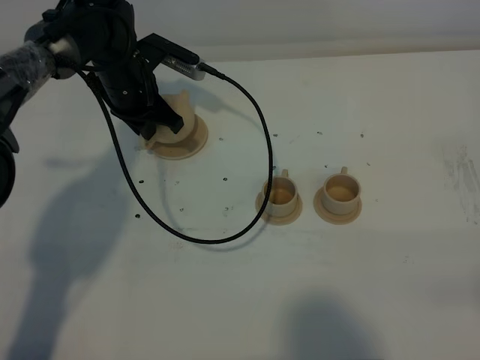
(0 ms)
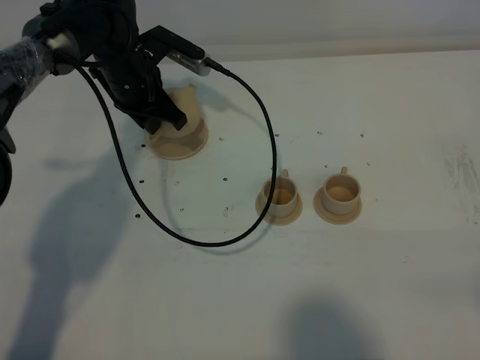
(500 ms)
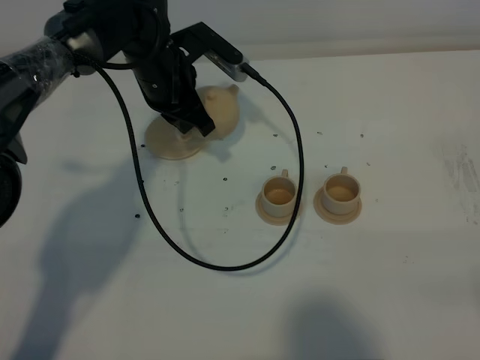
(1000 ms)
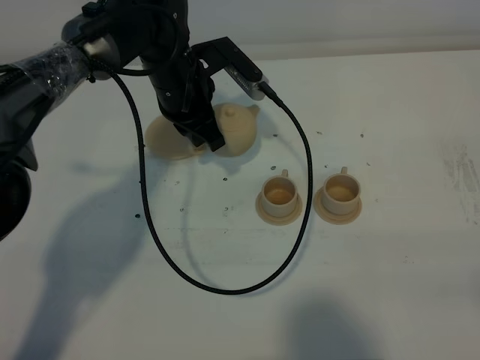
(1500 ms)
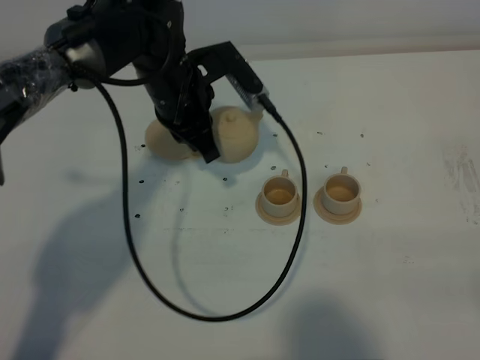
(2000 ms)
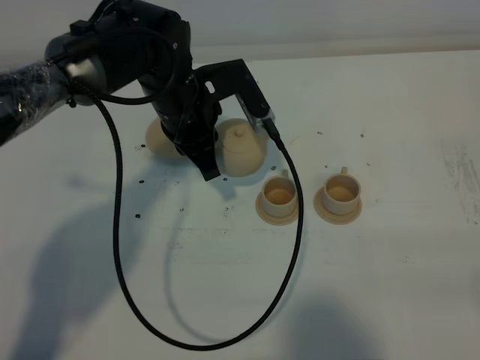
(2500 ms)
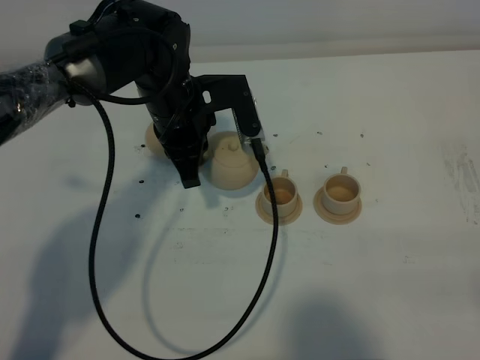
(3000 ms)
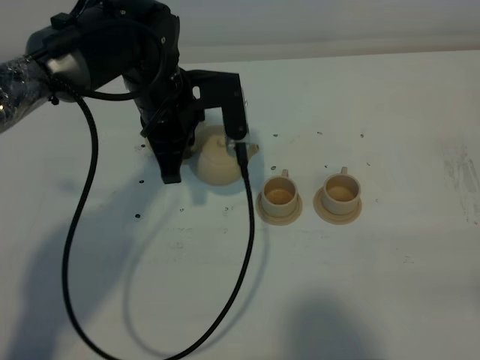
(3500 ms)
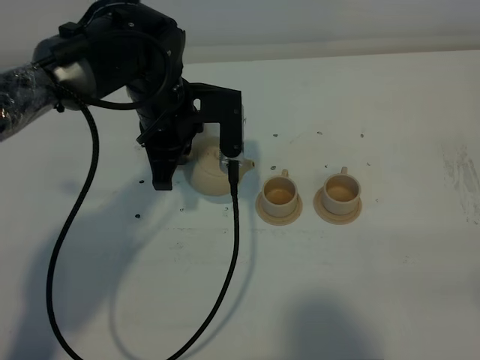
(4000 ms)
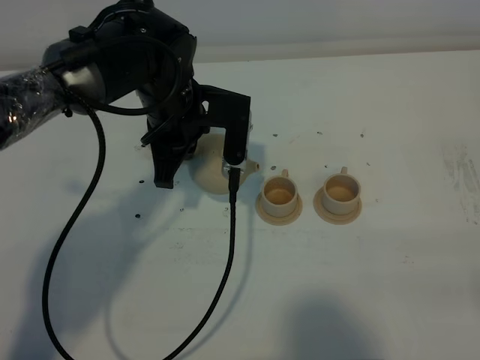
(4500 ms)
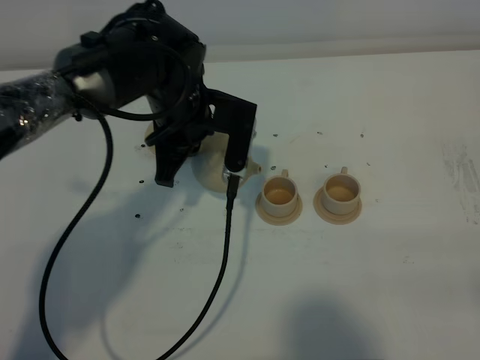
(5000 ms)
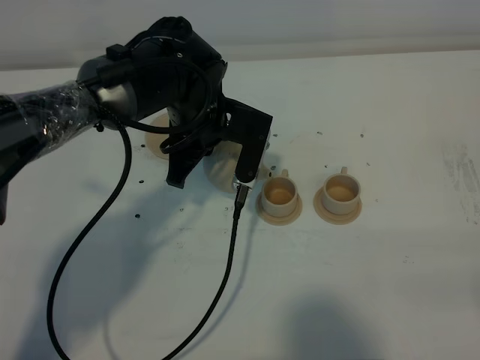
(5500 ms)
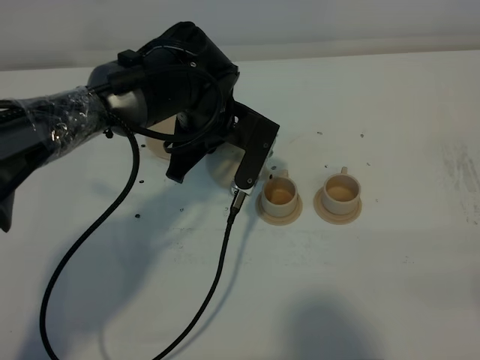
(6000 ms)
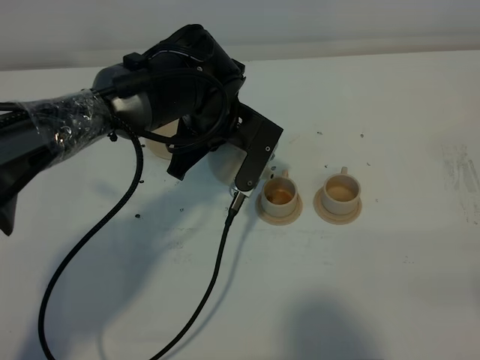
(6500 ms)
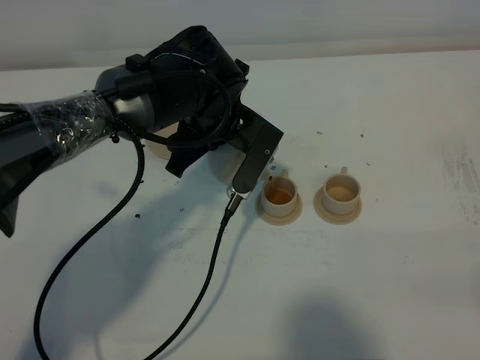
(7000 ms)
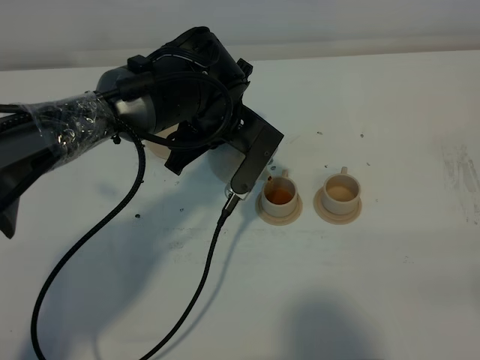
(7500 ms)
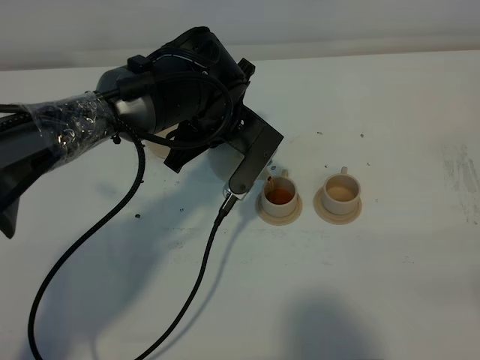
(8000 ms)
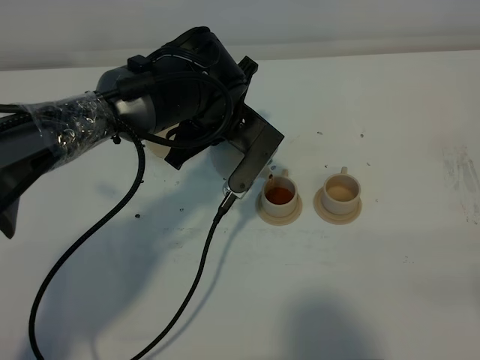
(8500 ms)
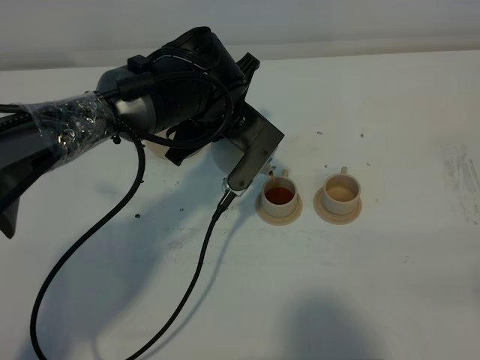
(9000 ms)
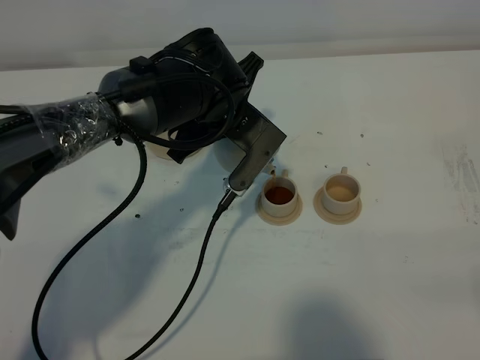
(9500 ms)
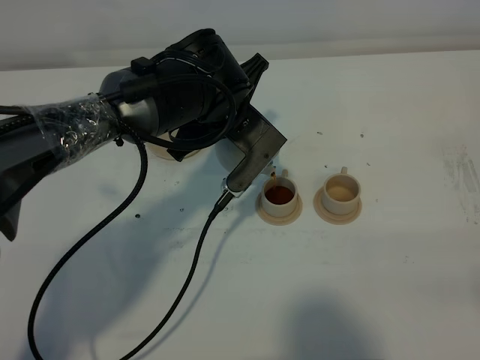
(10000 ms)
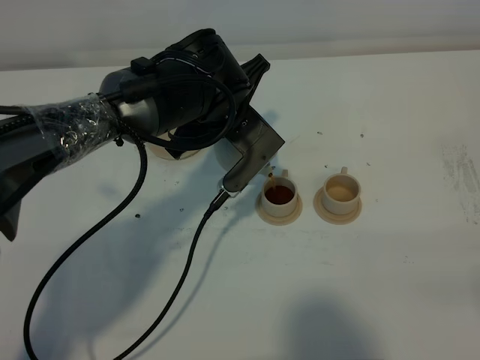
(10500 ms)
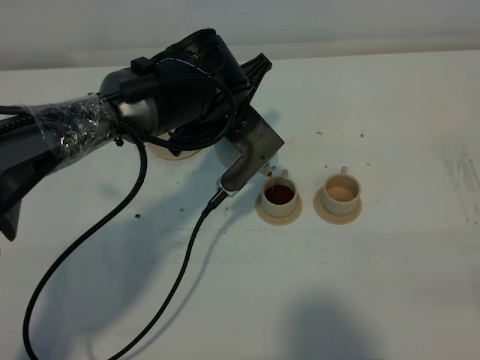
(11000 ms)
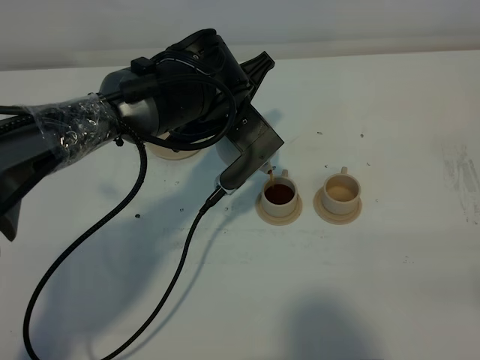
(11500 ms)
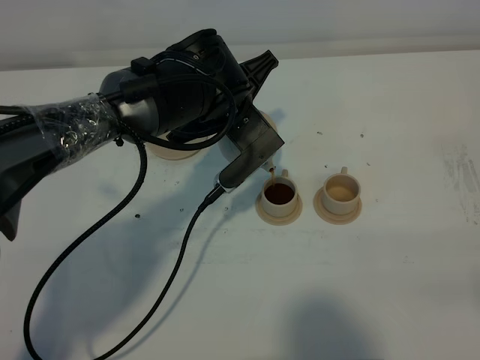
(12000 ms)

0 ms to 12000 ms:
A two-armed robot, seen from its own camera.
Task of the whole recording: grasp the brown teapot and pour the tea into the two brown teacups one by one, put the brown teapot back in its original place.
0 ms to 2000 ms: The left gripper goes about 10 cm to the right and backward.
6000 ms to 10000 ms: The grippers make only small movements.
10000 ms to 12000 ms: The grippers make only small movements.

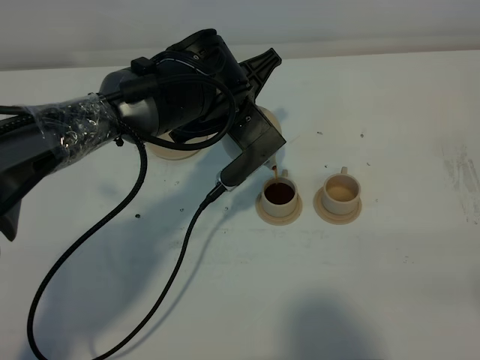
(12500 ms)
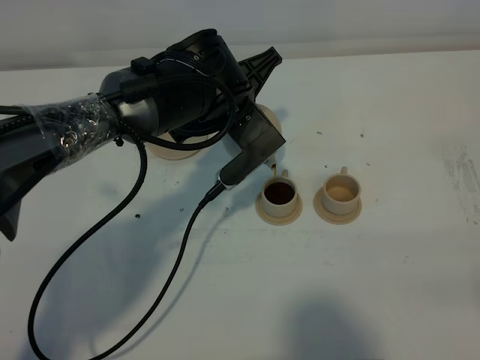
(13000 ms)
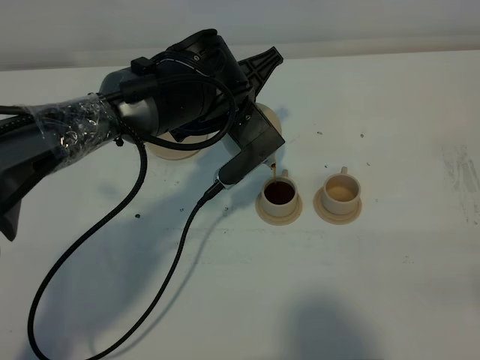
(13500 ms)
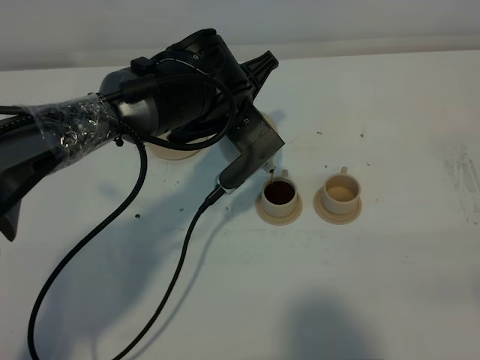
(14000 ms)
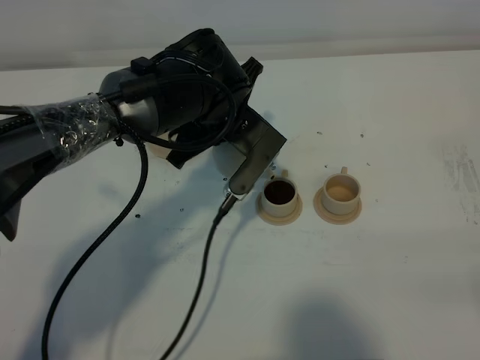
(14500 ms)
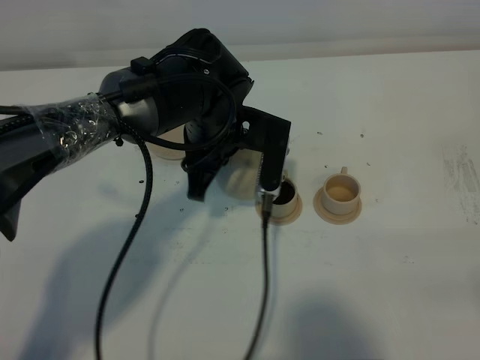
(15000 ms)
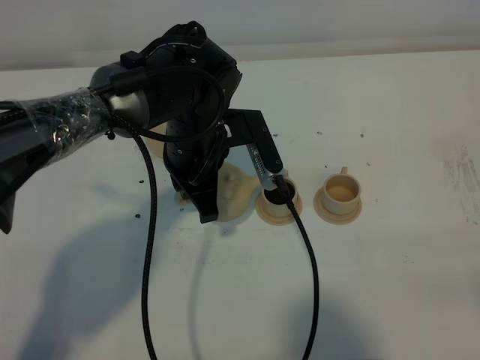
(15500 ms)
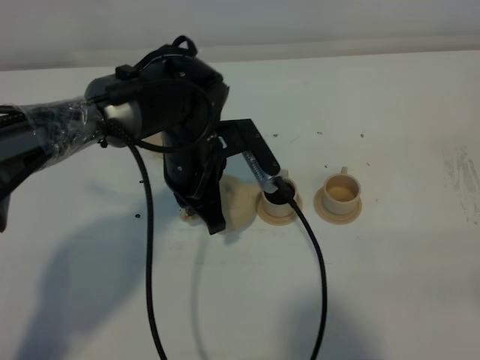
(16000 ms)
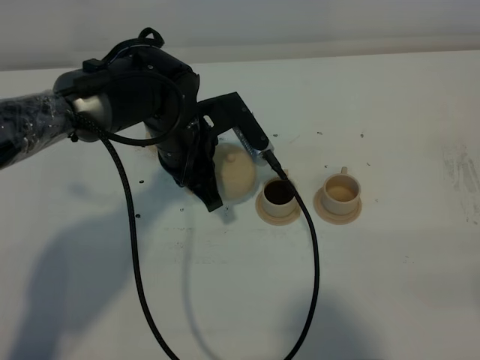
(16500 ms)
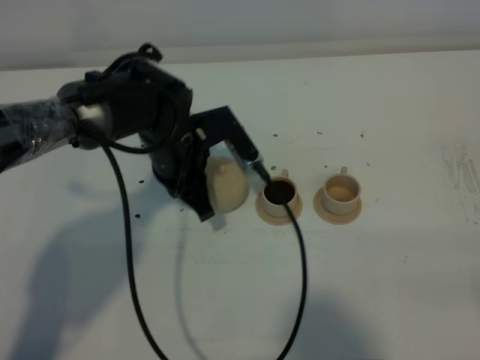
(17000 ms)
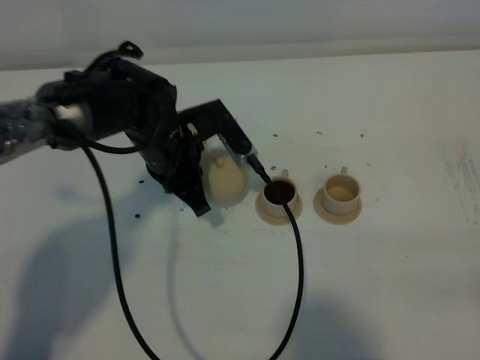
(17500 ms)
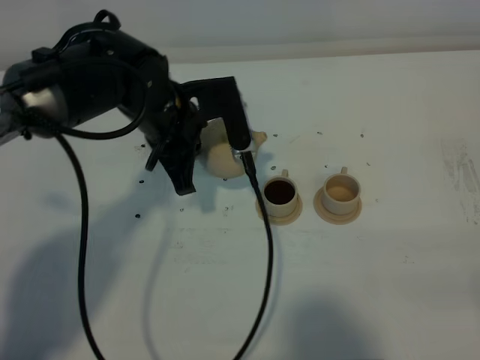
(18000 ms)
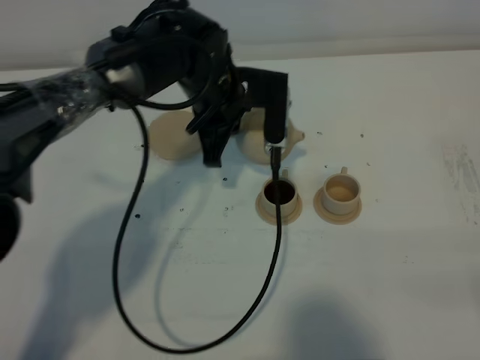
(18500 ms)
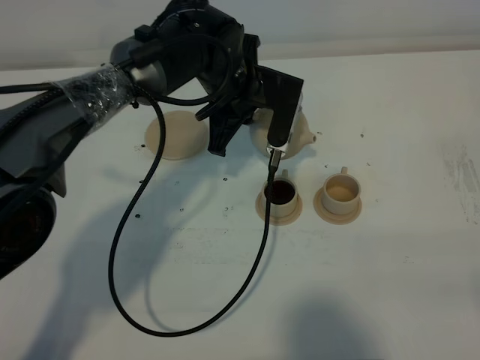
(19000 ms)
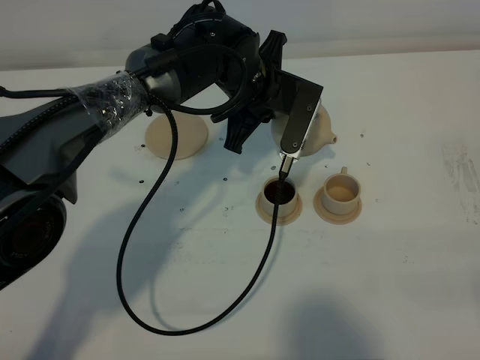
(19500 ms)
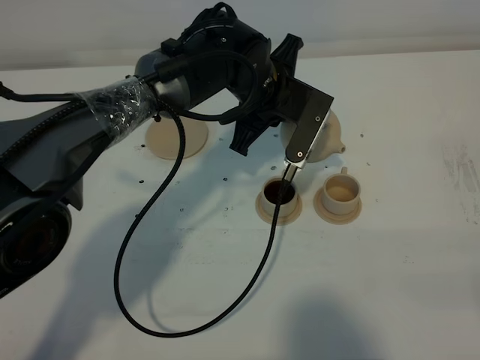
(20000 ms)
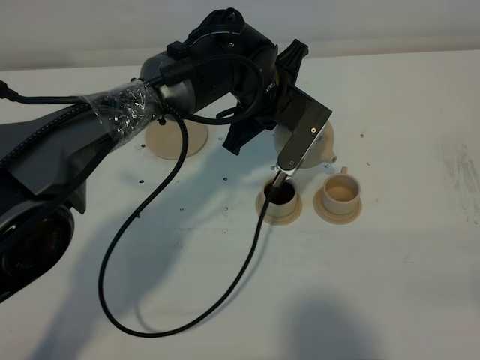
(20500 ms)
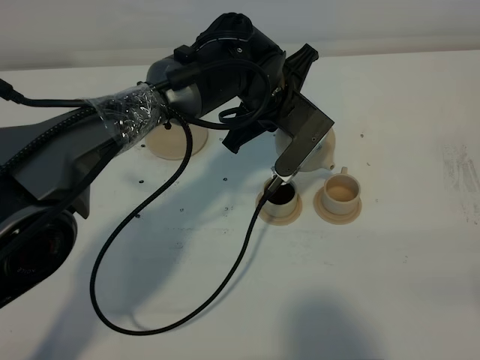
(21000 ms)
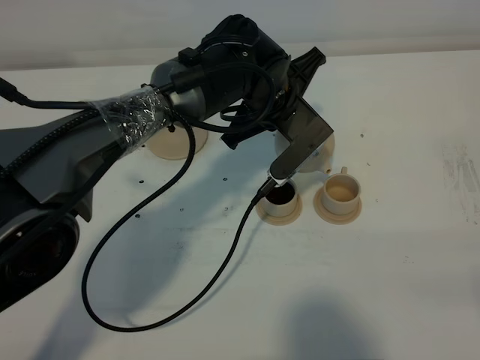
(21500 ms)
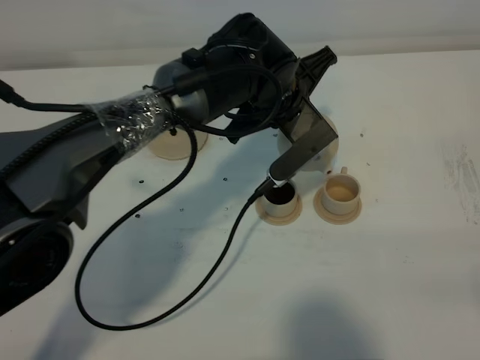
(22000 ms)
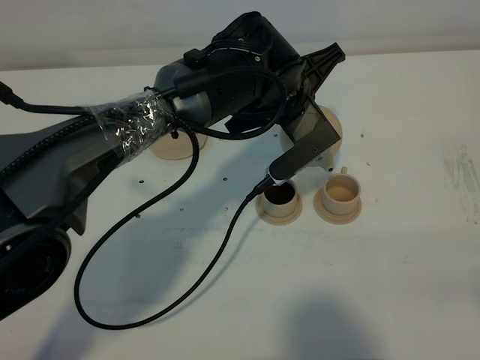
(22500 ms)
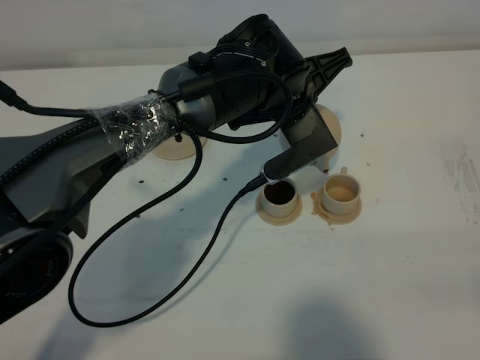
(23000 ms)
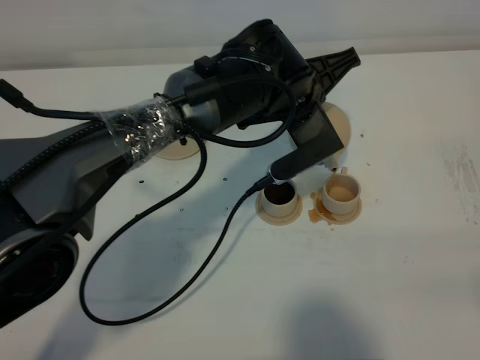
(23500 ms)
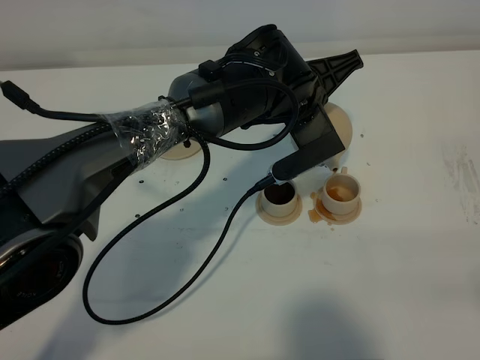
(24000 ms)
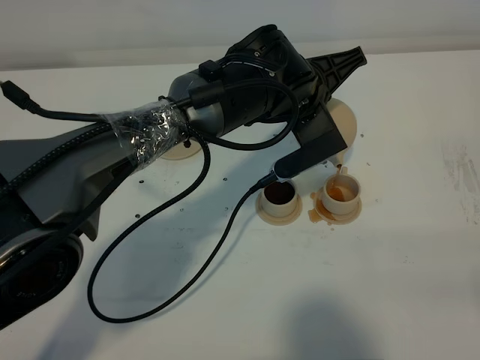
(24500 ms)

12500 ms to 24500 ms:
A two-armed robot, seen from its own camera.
Task of the whole recording: grasp the brown teapot and pour the tea into the two brown teacups one by one, put the brown teapot back in its original place.
12500 ms to 14500 ms: The grippers move only a little.
14500 ms to 16500 ms: The left gripper ends up some 5 cm from where it was.
16500 ms to 18500 ms: The left gripper moves some 5 cm.
18500 ms to 20500 ms: The left gripper goes about 5 cm to the right.
22500 ms to 24500 ms: There are only small adjustments of the grippers.

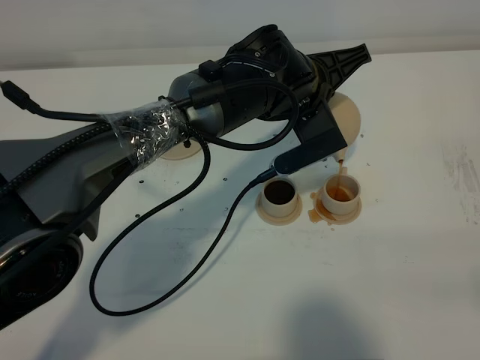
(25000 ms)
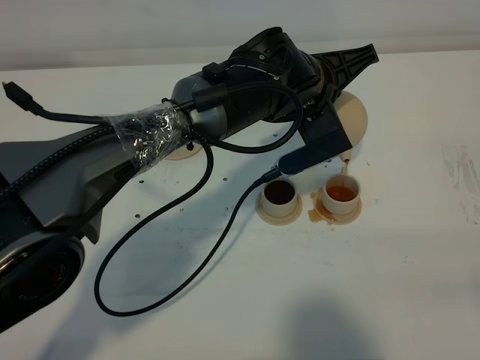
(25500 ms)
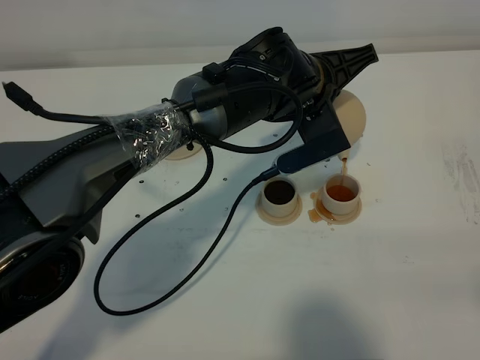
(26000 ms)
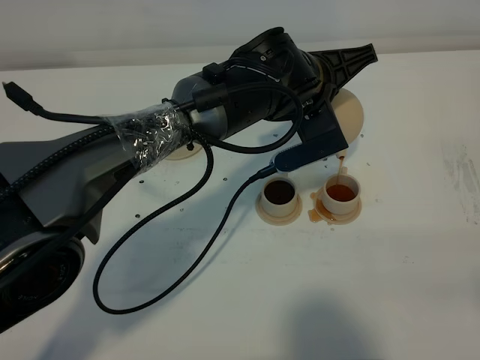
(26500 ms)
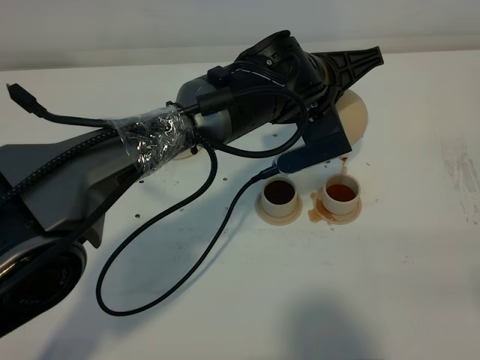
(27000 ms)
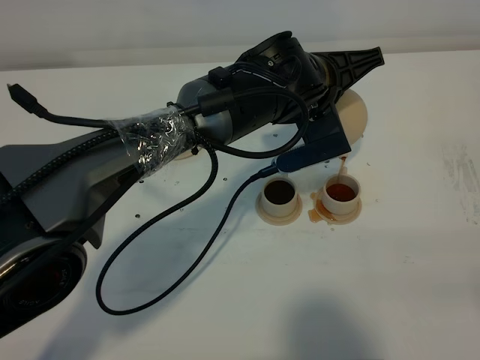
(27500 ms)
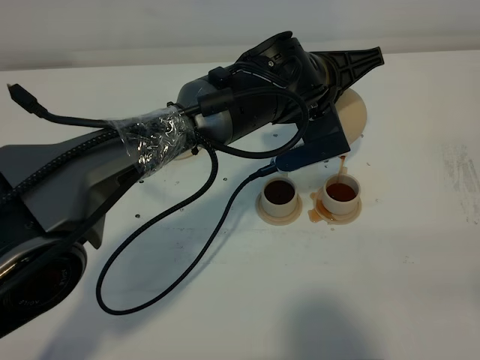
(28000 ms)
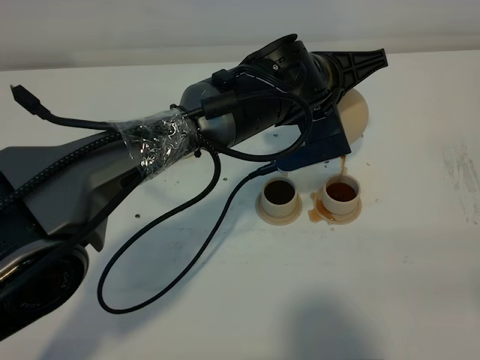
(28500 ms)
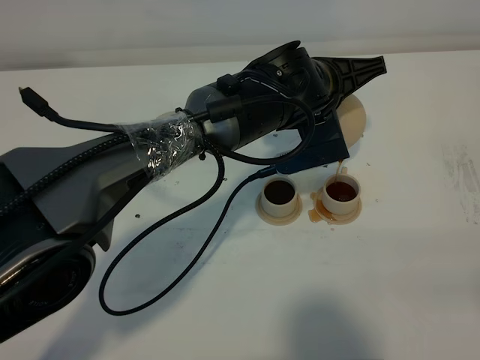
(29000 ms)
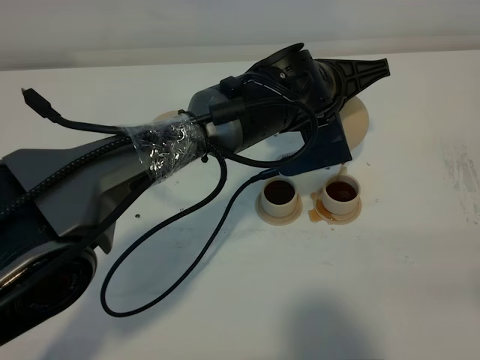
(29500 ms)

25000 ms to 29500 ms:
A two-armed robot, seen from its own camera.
Task of the whole recording: grasp the brown teapot and pour the tea into the two brown teacups one by one, put the brown teapot back in its original place.
25000 ms to 29500 ms: There are only small adjustments of the grippers.
